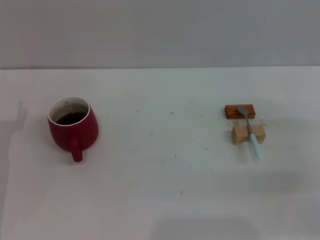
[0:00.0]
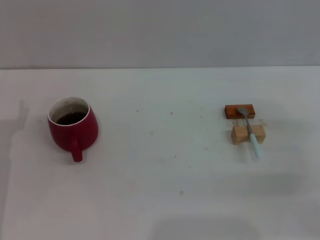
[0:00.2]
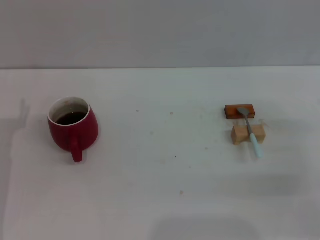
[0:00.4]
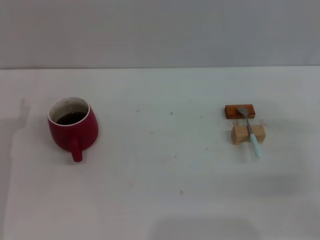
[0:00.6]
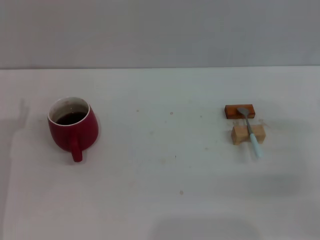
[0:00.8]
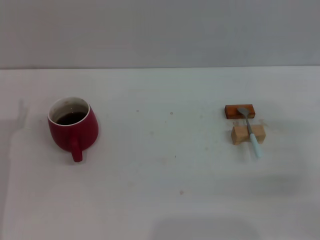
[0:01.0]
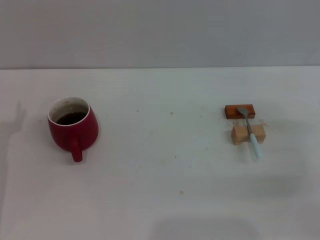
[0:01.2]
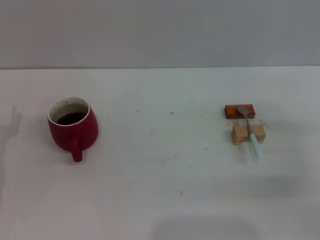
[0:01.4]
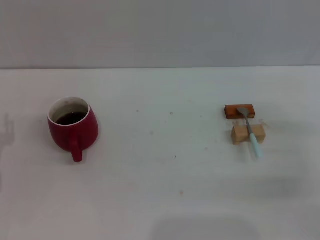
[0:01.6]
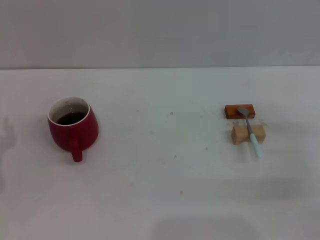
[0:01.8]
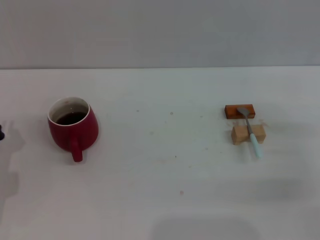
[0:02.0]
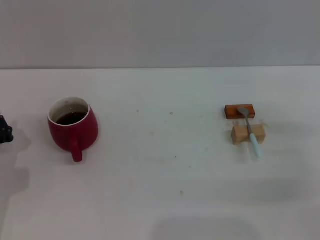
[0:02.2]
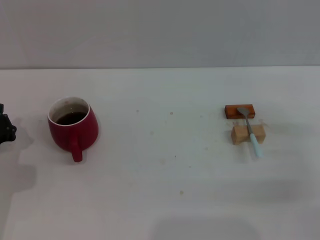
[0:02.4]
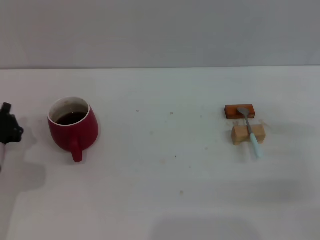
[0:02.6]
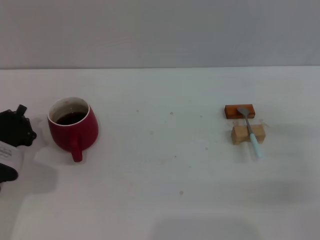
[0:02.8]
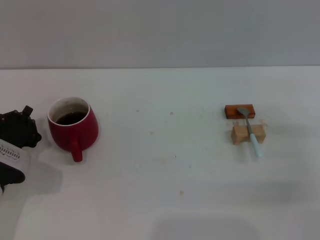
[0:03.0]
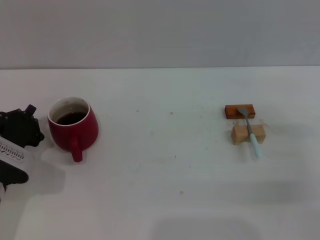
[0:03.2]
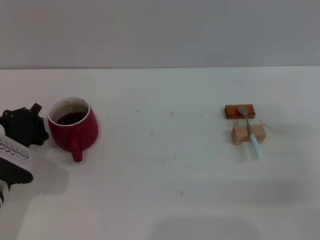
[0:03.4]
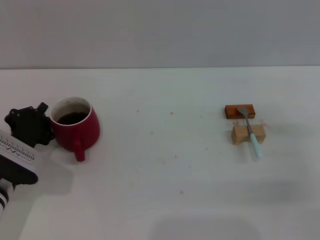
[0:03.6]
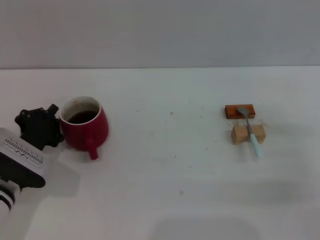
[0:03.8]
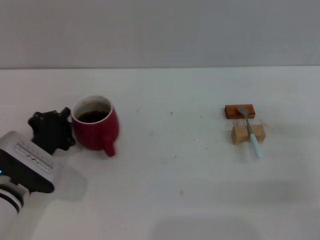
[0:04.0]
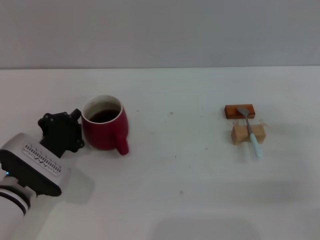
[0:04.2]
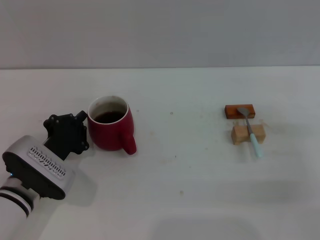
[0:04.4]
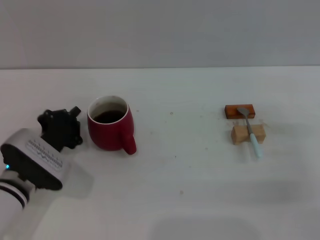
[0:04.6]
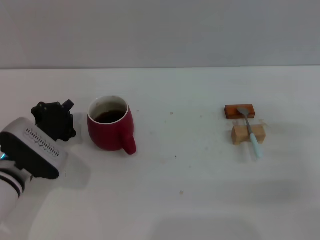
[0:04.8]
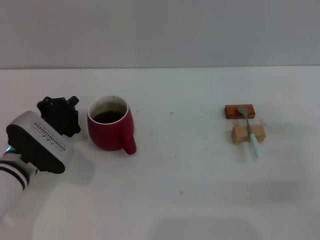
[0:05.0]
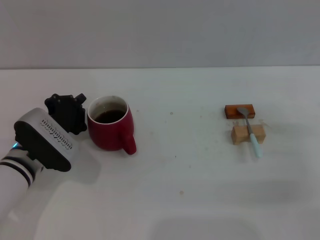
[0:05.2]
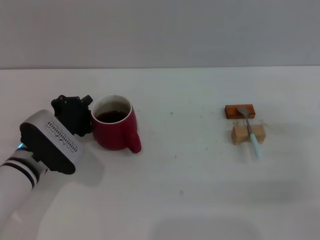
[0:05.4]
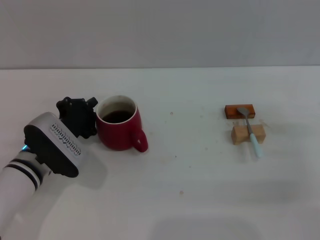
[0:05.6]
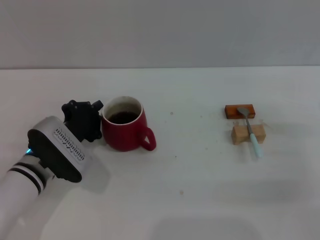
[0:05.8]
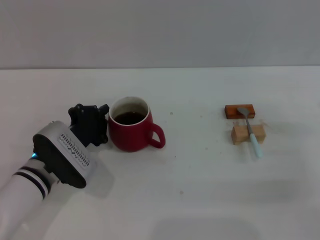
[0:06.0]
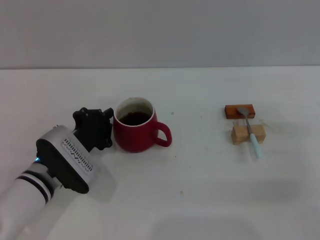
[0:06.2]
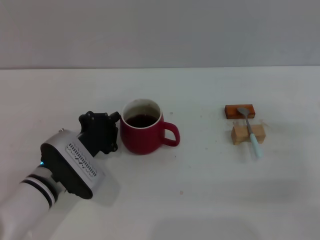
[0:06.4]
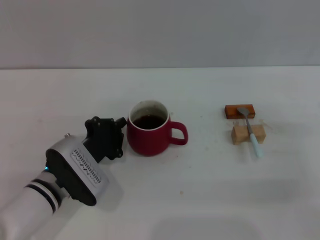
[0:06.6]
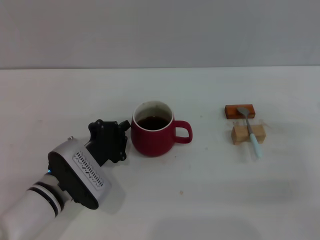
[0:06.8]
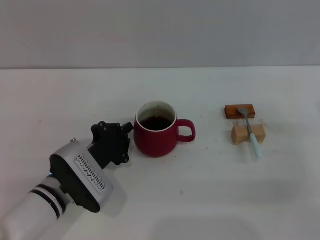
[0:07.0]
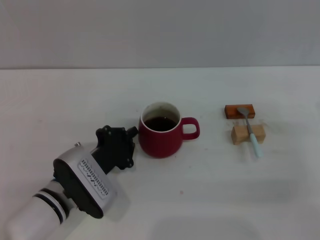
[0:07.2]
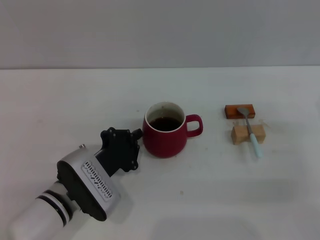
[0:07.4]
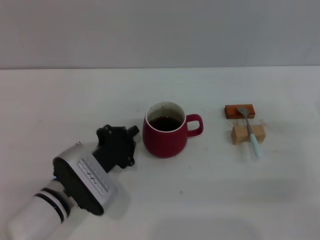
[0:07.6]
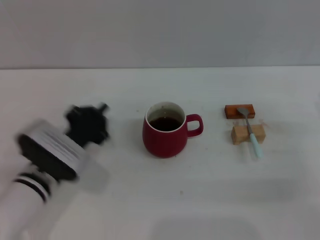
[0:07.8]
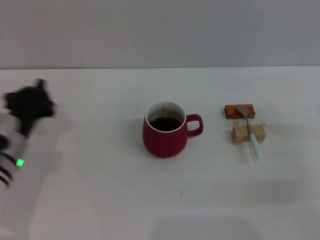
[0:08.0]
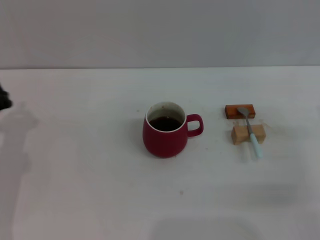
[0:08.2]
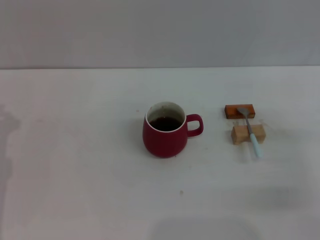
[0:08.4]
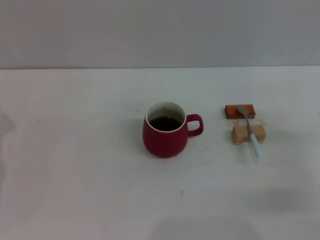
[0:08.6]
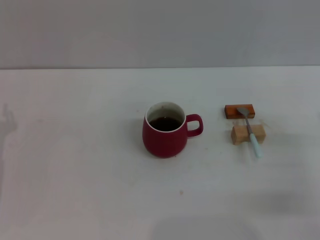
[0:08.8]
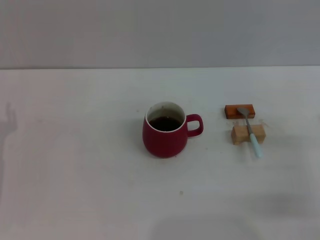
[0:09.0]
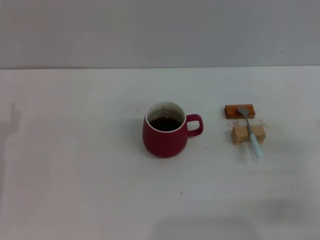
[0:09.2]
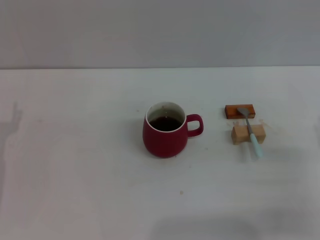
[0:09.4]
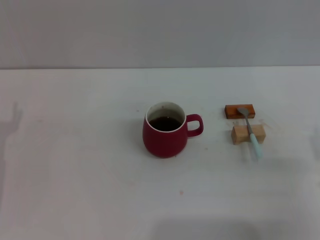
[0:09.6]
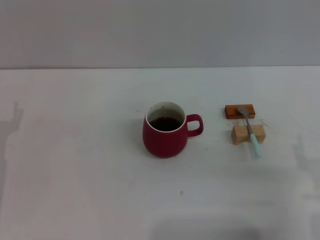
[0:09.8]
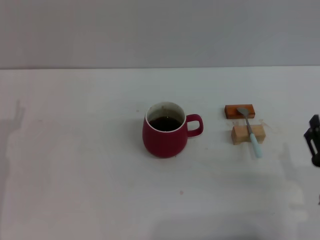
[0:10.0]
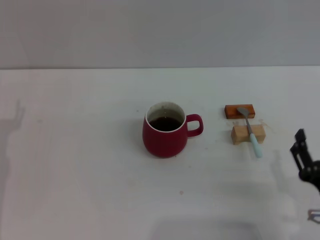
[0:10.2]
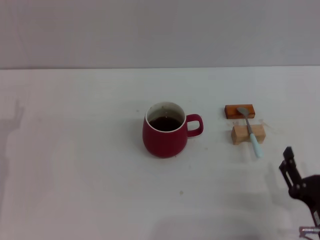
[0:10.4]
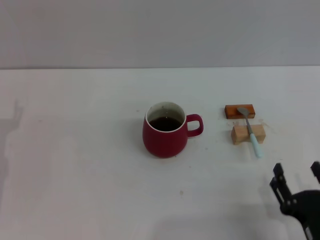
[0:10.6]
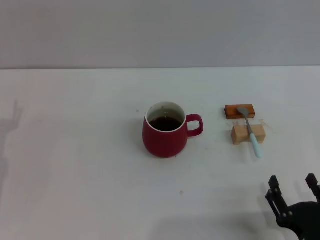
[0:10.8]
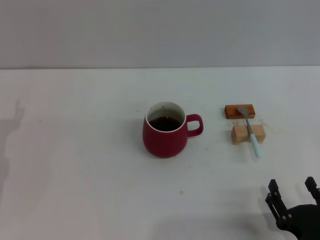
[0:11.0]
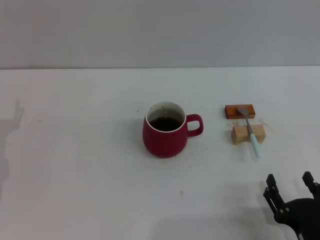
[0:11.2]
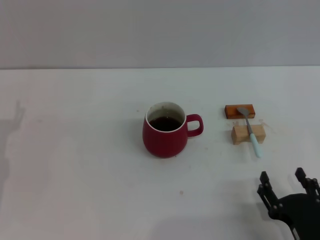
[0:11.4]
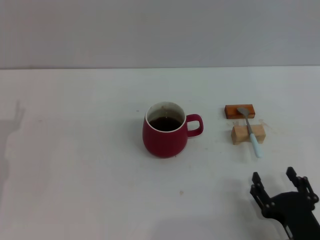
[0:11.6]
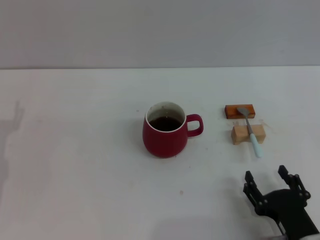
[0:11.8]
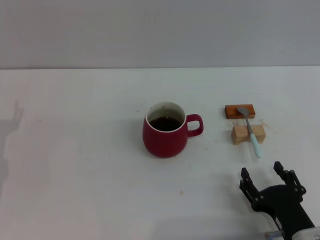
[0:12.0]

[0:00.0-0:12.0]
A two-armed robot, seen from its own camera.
Task of the whole recording: Move the red cup to the center, lift the blue spoon, stir it three times in the cup, and put the spoon into the cup.
Step, 0:00.0 to 0:07.6: Move the cup with coffee to the center of view with the left gripper.
0:01.6 to 0:03.0: The left gripper shifts by about 5 cm, and closes its fingers.
0:03.0 to 0:04.4: The left gripper moves to the right, some 5 cm.
0:04.4 to 0:06.0: There are only small adjustments of the grippers.
0:06.0 to 0:07.6: There are only small adjustments of the grippers.
0:07.6 to 0:09.0: The left gripper shifts about 15 cm to the left, and opens.
0:09.0 to 0:10.4: The right gripper moves backward and to the left, approximately 15 cm.
0:10.4 to 0:12.0: There are only small adjustments of the grippers.

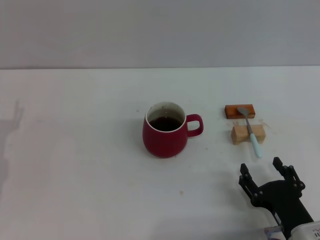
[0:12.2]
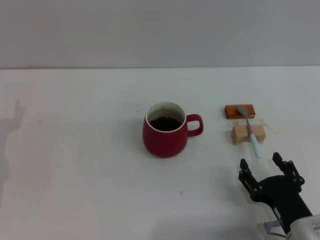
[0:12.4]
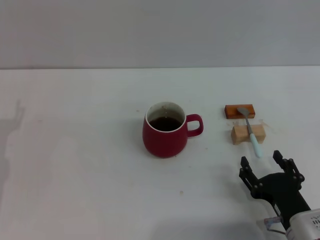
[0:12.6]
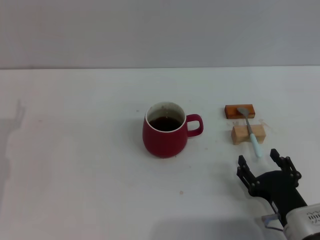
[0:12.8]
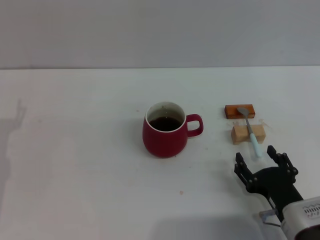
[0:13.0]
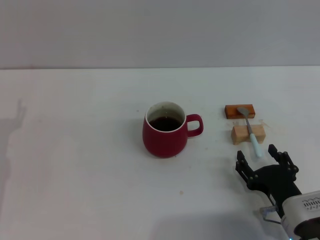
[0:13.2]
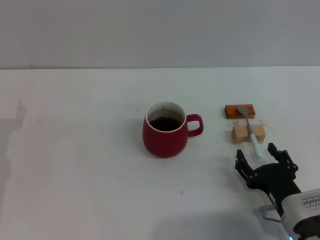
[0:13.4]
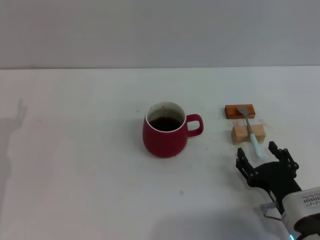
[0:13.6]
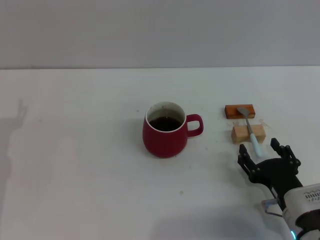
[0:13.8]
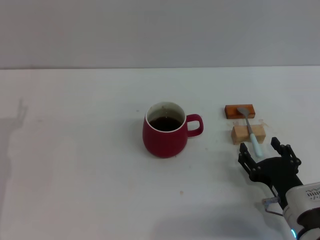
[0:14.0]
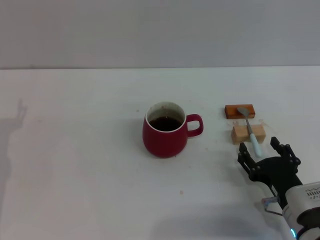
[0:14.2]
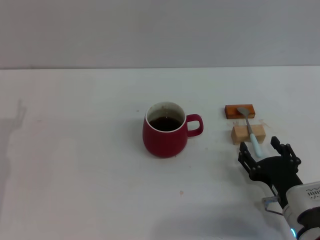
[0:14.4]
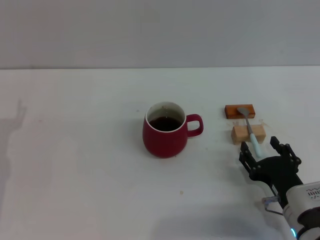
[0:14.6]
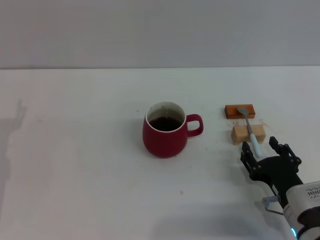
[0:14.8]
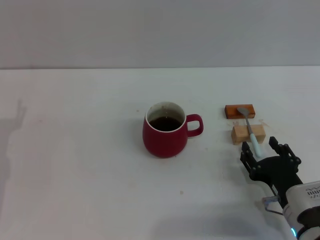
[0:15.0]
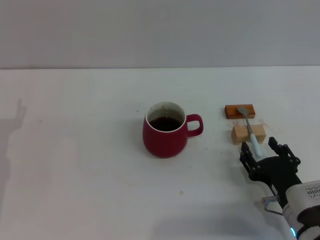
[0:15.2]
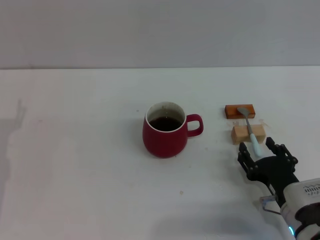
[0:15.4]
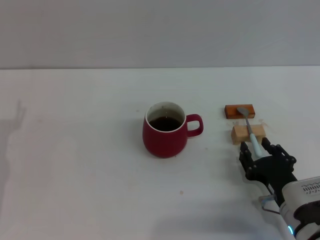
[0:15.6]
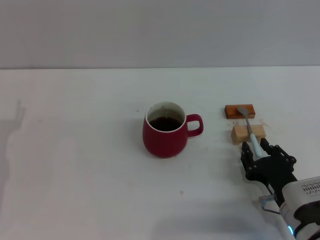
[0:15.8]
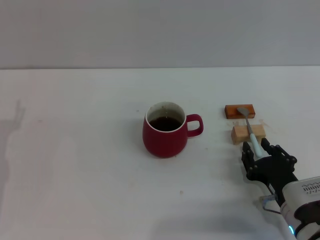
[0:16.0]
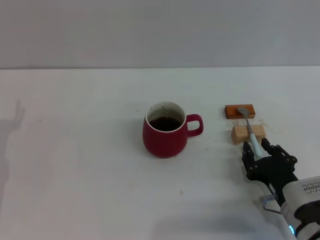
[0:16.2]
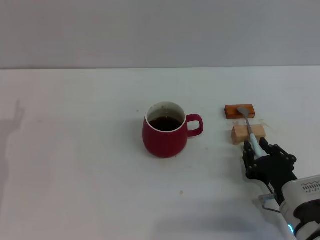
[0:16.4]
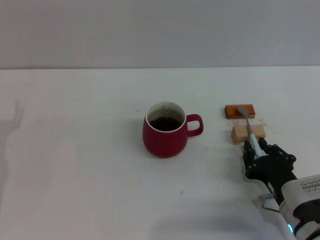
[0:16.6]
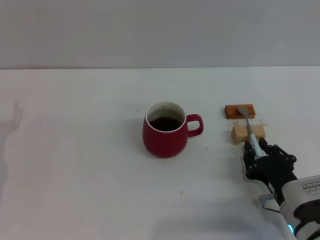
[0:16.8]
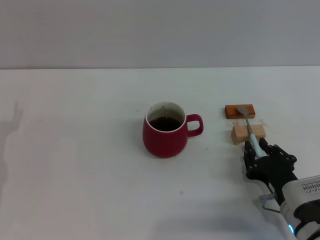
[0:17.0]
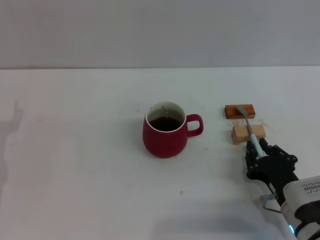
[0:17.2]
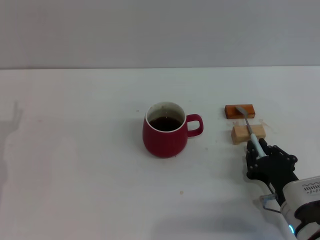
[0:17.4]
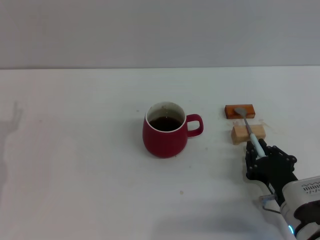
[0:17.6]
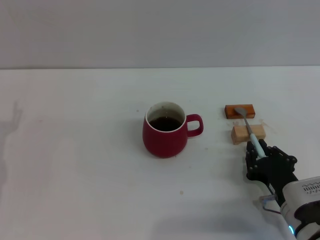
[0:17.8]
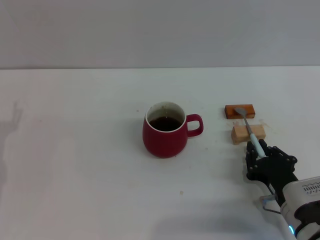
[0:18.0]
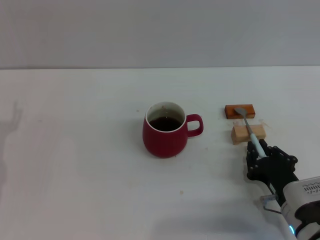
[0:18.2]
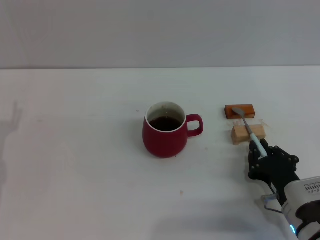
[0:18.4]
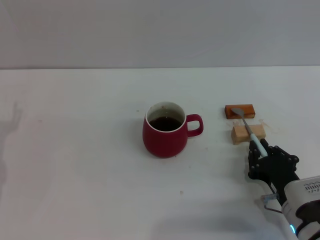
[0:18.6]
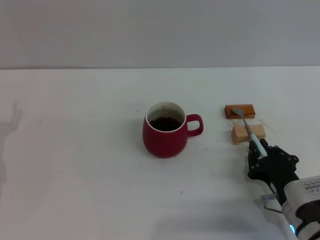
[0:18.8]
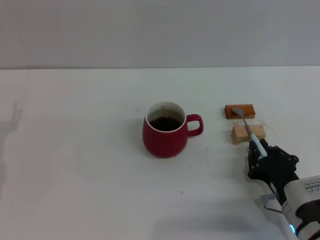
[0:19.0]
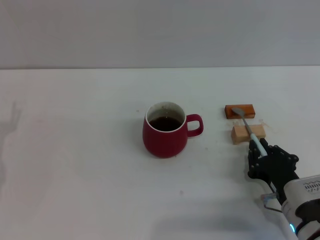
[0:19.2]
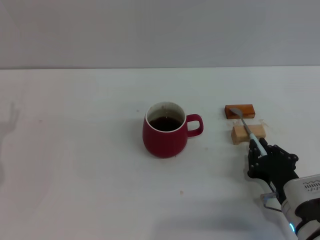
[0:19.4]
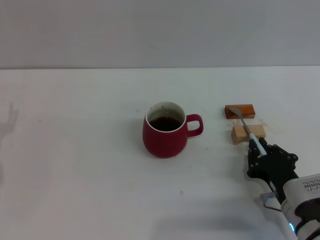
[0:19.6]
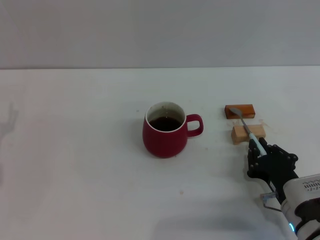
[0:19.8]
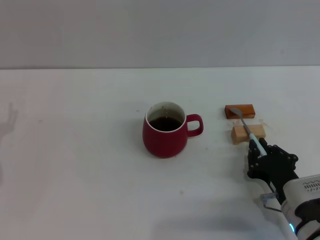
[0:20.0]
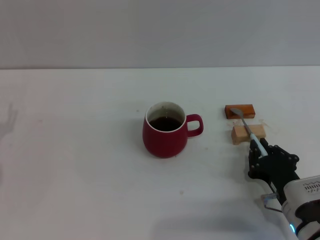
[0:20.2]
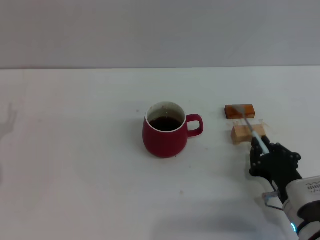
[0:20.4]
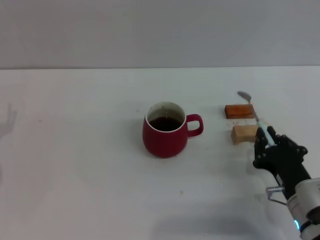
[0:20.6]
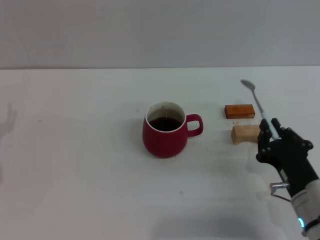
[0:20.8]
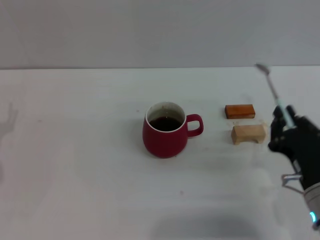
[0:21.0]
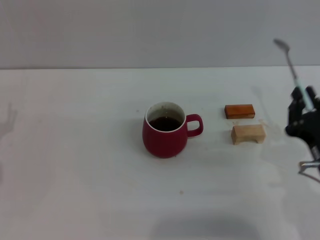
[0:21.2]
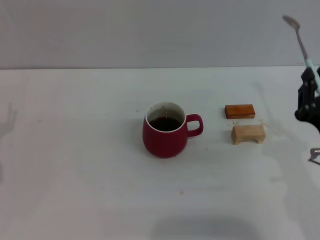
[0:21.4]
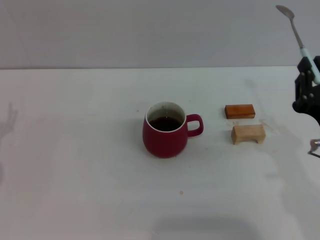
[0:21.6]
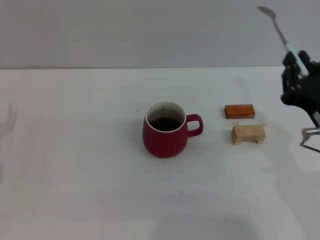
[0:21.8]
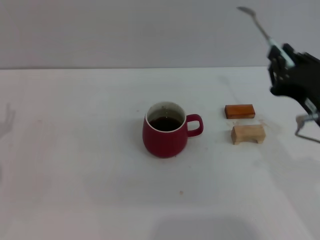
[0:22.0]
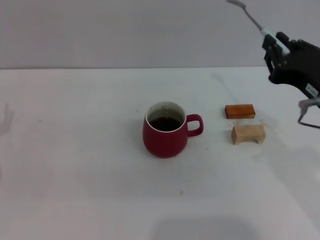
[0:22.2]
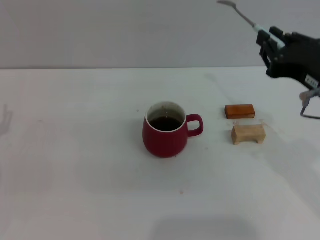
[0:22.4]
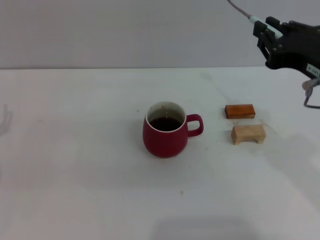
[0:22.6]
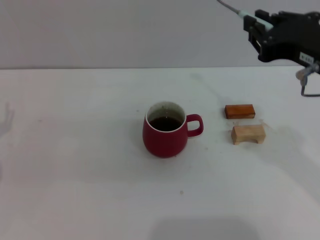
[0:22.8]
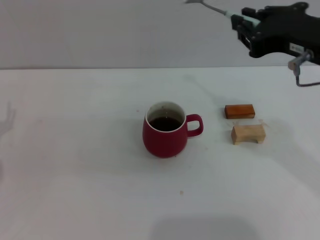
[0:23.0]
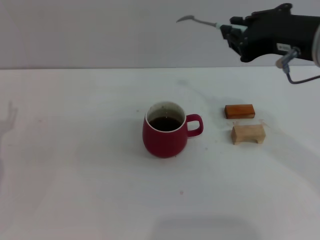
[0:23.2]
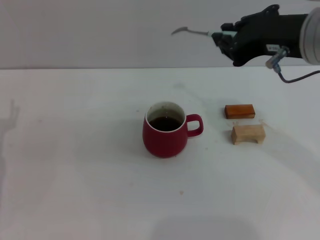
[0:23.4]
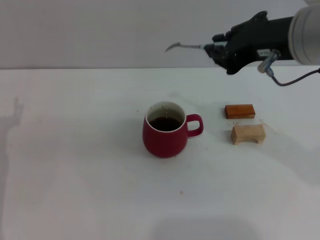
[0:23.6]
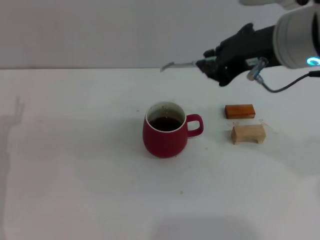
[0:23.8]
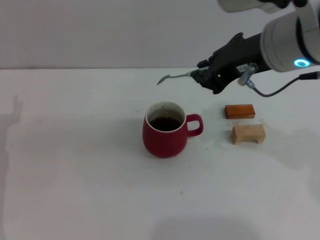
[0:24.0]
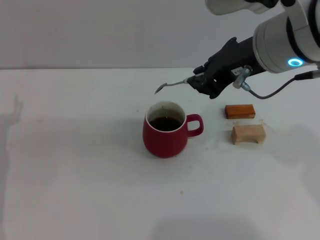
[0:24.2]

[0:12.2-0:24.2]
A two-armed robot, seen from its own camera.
Task of the whole recording: Move the red cup to the center, lift the blue spoon, stir it three times in the cup, and put the spoon into the cup.
Step, 0:12.2 to 0:20.8: Pick up the spoon with the right gripper.
0:12.2 to 0:13.8: There are only small adjustments of the grippers.
0:13.8 to 0:15.2: Both grippers stay about where they are.
0:15.2 to 0:16.6: The right gripper closes its fingers.
0:16.6 to 0:19.8: Both grippers stay put.
0:19.8 to 0:21.2: The right gripper is displaced upward by roughly 10 cm.
0:21.2 to 0:22.6: The right gripper travels upward by roughly 15 cm.
0:22.6 to 0:24.2: The right gripper travels to the left, forward and upward by roughly 10 cm.
